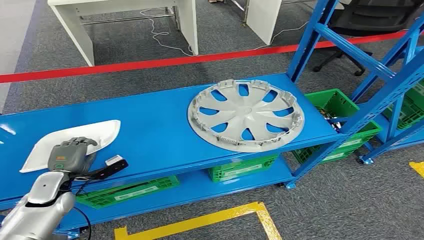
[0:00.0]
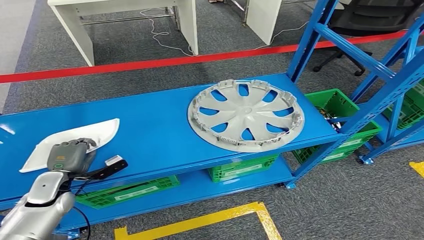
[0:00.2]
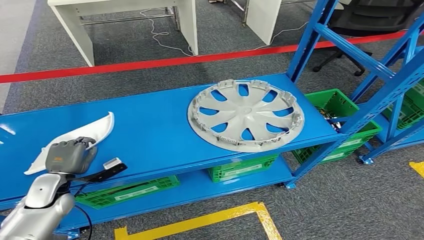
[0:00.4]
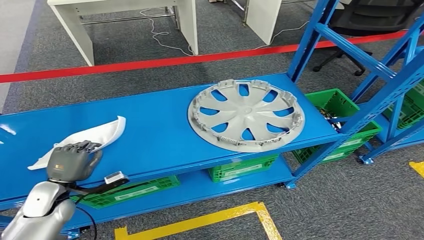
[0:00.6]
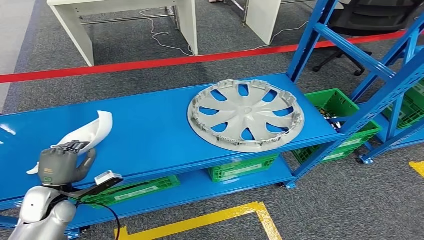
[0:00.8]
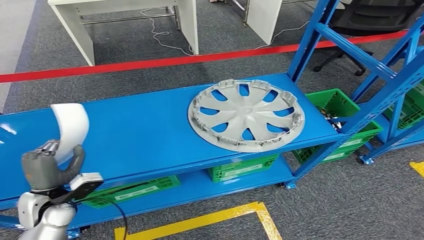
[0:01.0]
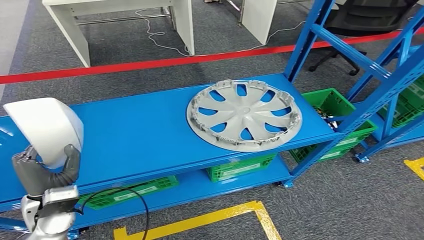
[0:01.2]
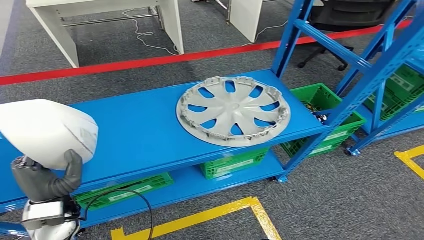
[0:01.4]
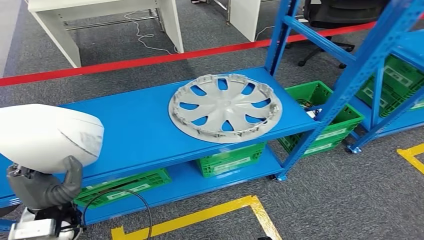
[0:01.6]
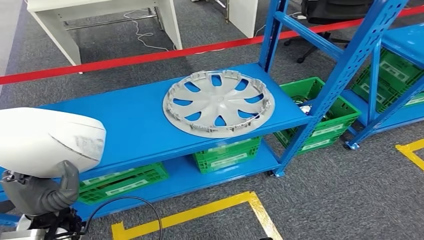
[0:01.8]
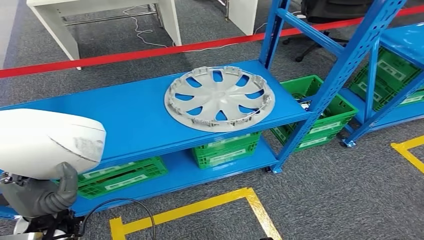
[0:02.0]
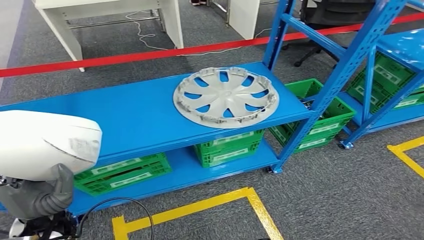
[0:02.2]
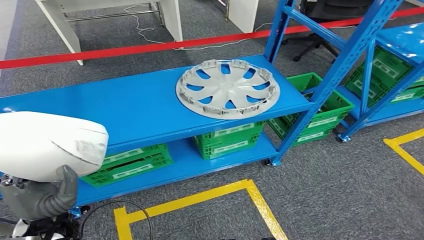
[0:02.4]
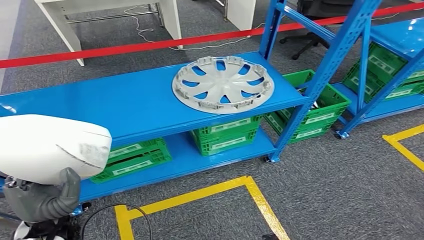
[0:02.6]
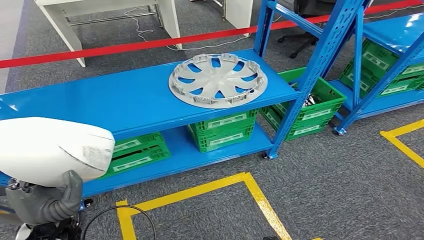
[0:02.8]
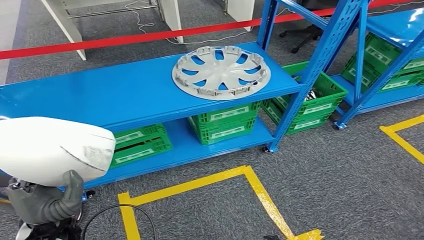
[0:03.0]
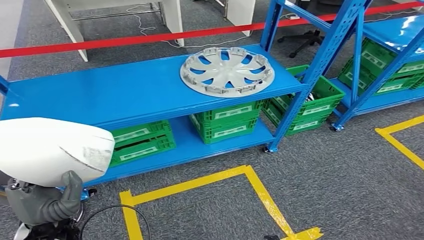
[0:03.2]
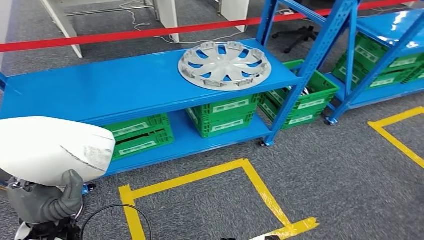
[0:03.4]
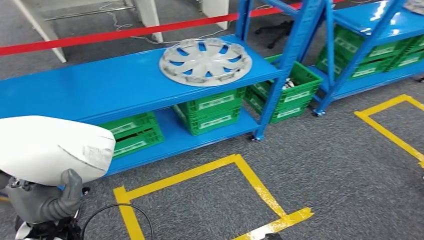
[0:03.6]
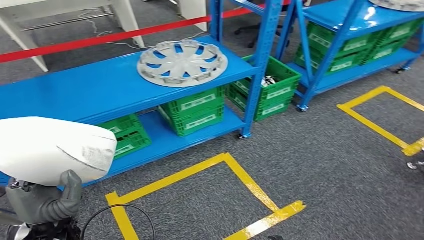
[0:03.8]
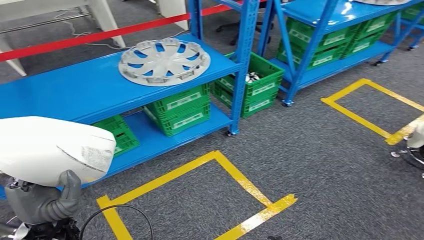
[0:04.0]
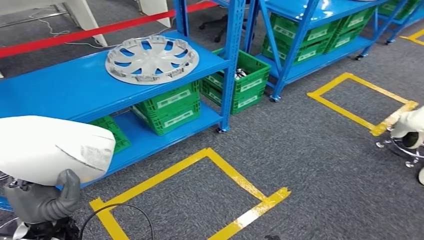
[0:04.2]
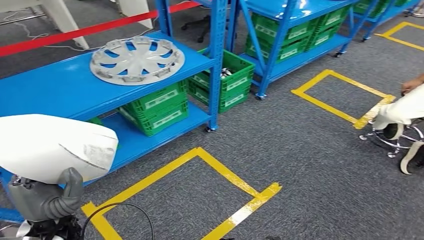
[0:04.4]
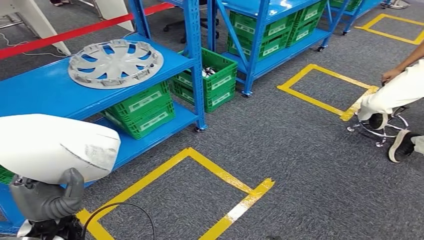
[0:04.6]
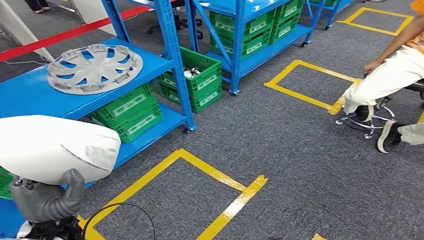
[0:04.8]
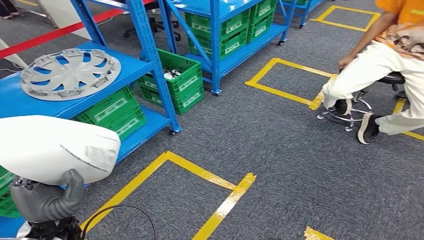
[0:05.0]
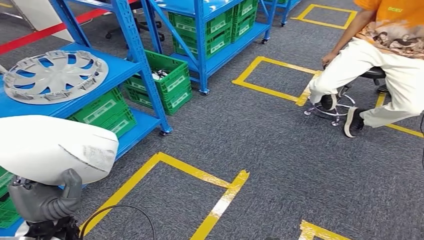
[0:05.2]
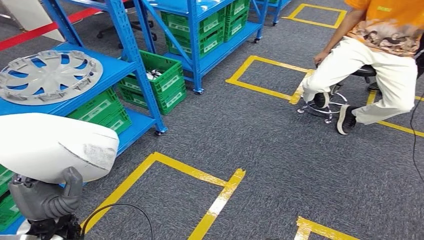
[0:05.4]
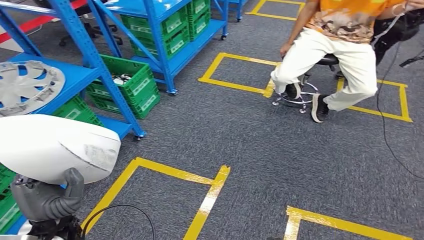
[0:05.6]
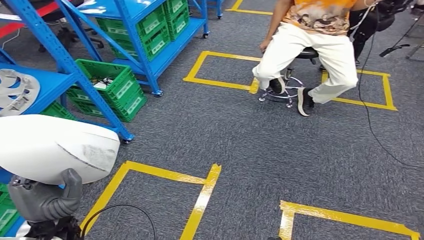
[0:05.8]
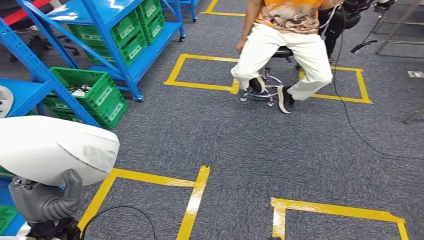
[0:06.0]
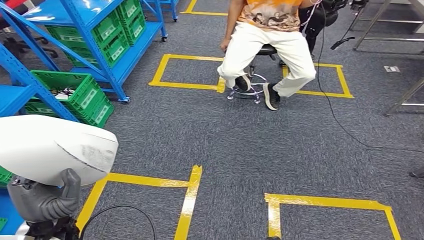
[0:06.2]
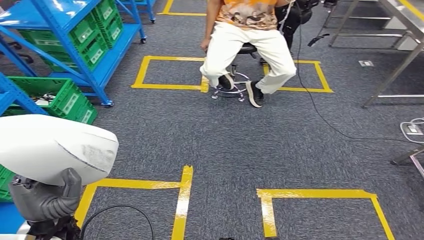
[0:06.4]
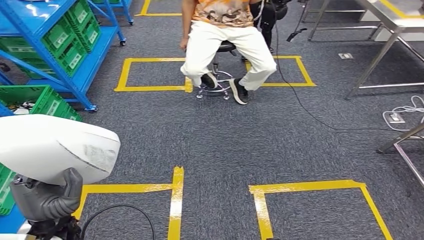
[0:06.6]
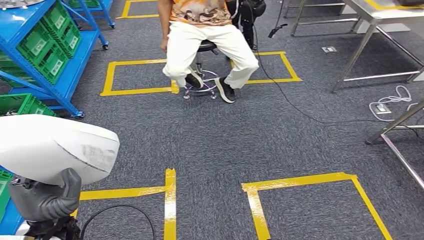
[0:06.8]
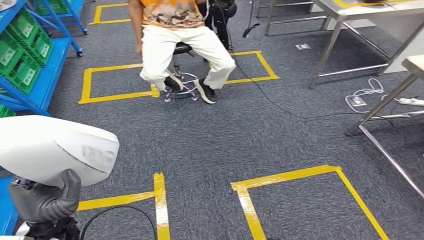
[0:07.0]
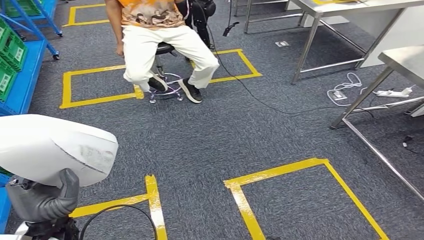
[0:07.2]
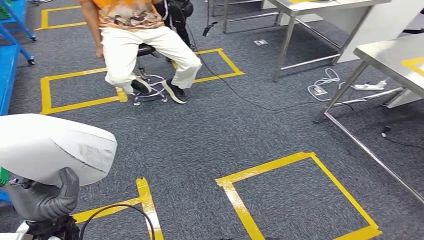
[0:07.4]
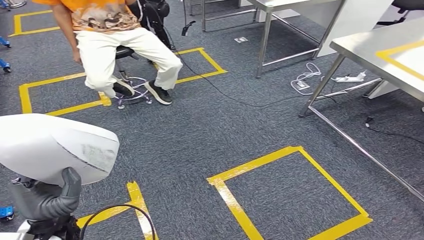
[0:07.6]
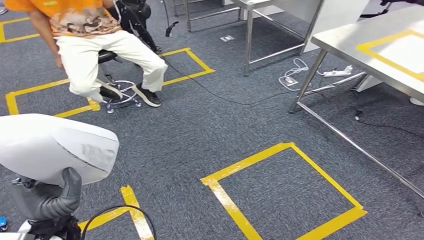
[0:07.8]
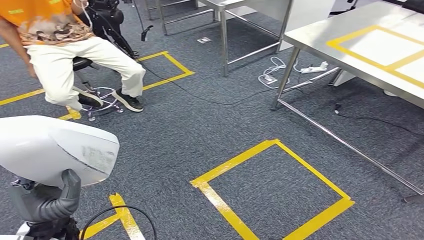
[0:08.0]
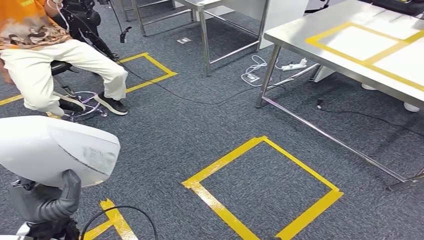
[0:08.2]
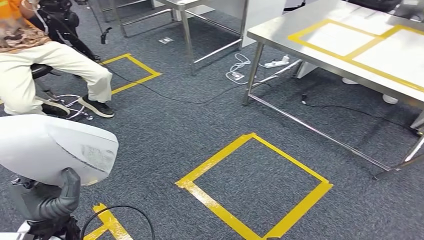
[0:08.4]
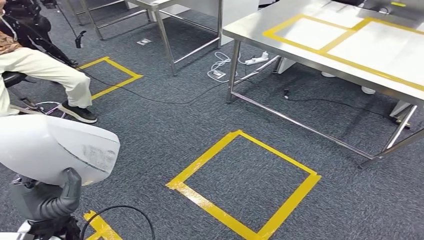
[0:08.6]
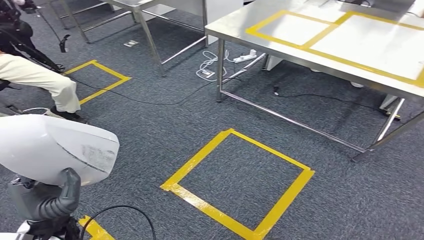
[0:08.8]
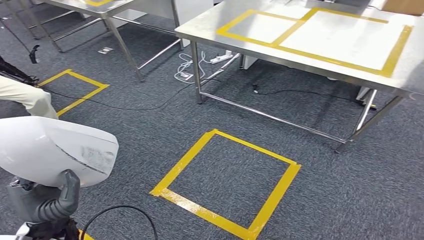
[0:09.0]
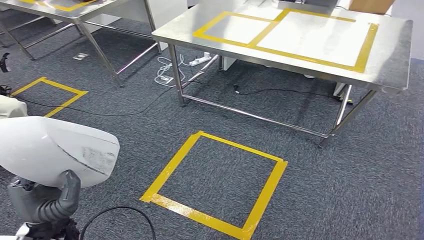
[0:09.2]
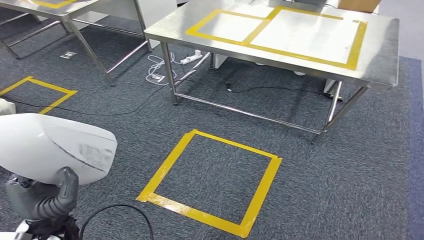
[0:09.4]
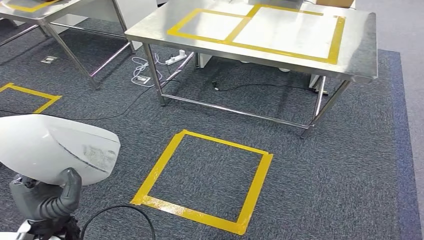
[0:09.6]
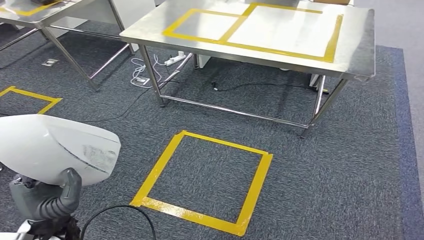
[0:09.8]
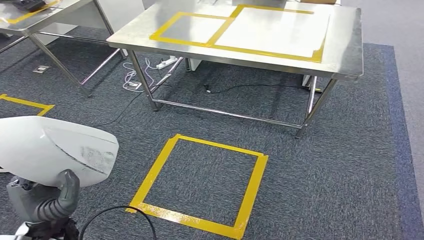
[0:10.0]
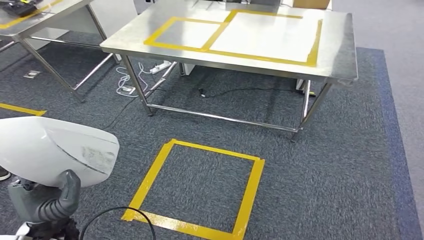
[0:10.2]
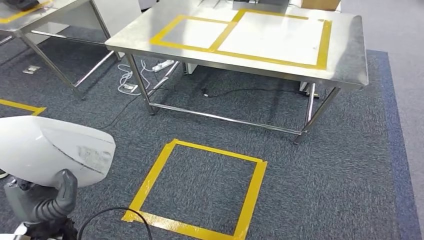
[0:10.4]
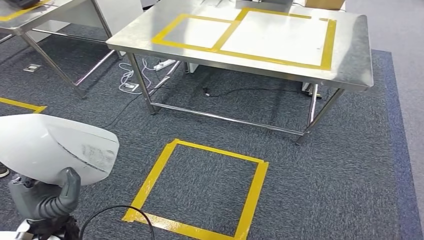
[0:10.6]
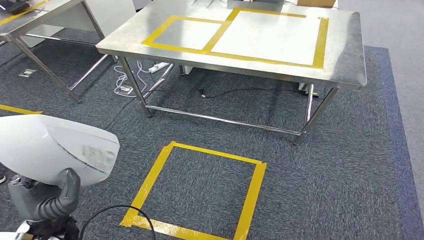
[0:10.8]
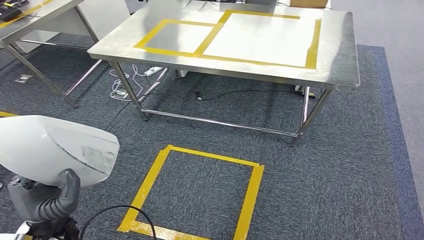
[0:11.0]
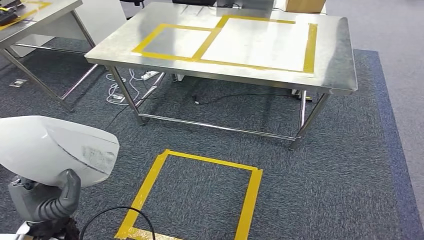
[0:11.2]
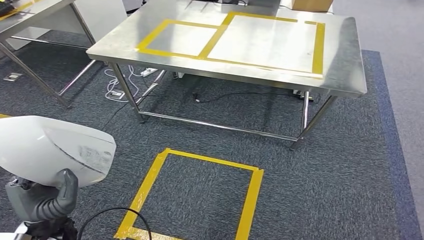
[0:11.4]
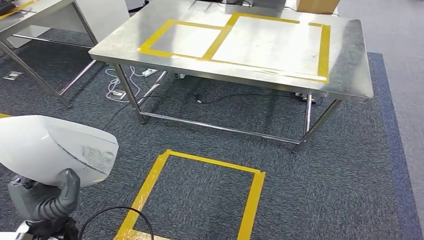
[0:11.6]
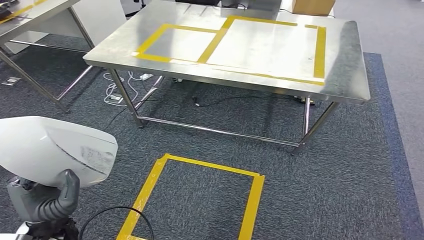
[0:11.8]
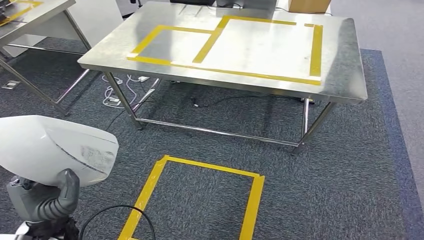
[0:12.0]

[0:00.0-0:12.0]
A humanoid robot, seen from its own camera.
Step, 0:00.0 to 0:02.8: Pick up the small parts from the shelf.

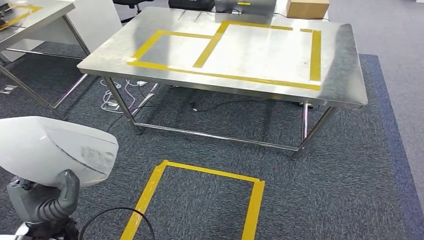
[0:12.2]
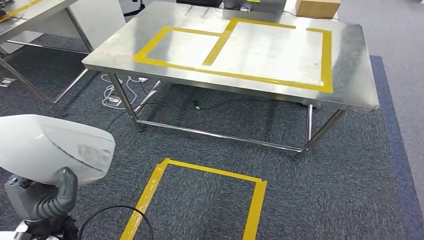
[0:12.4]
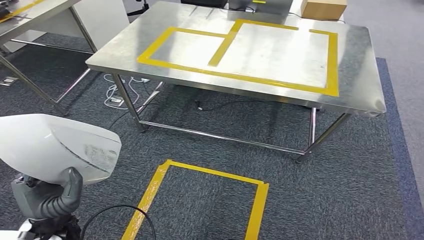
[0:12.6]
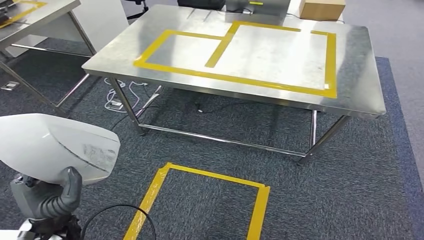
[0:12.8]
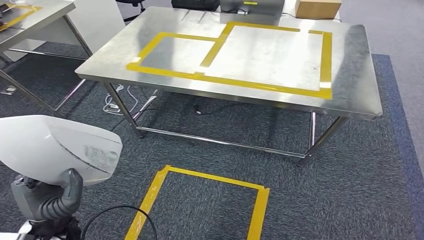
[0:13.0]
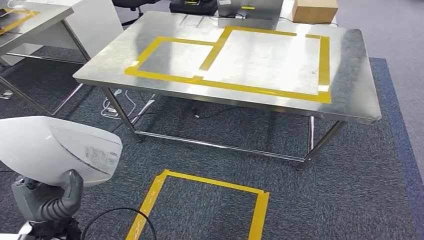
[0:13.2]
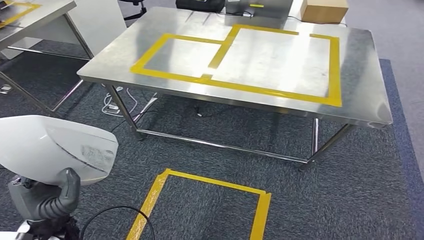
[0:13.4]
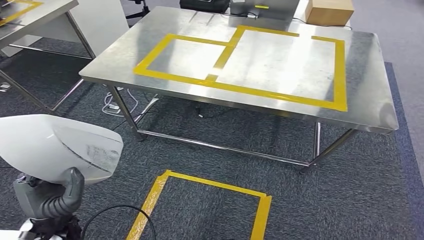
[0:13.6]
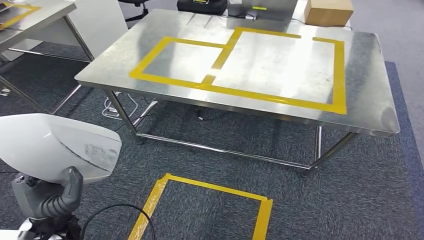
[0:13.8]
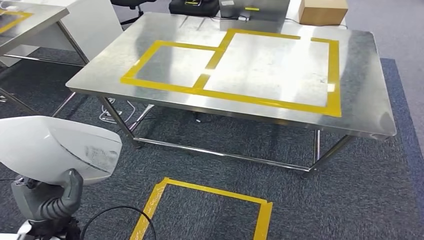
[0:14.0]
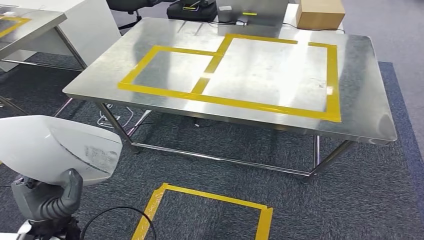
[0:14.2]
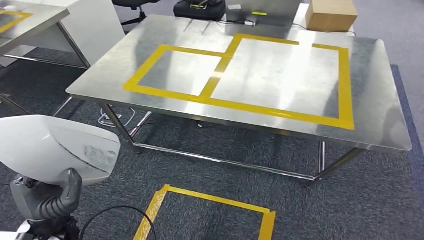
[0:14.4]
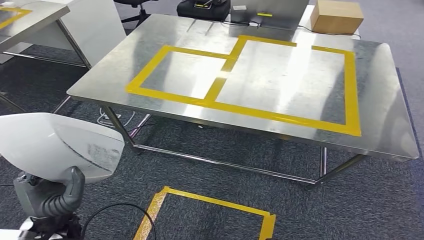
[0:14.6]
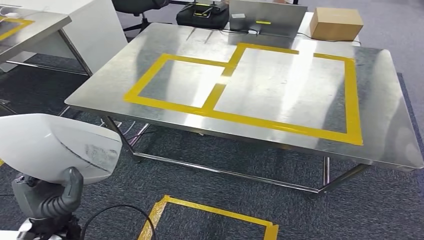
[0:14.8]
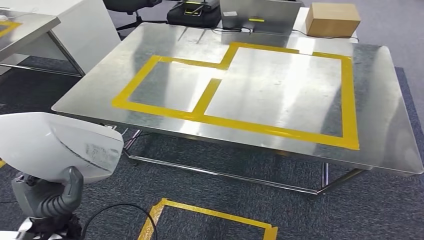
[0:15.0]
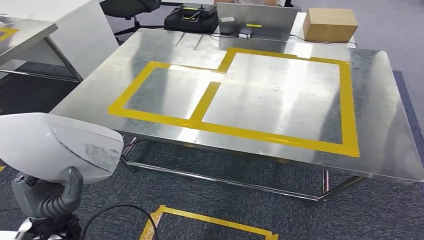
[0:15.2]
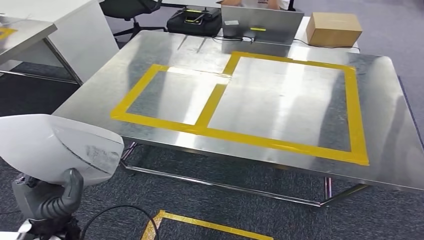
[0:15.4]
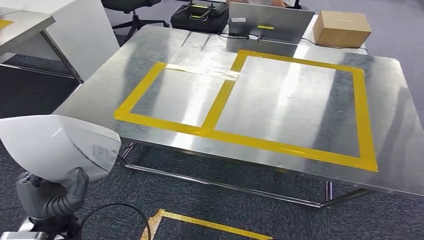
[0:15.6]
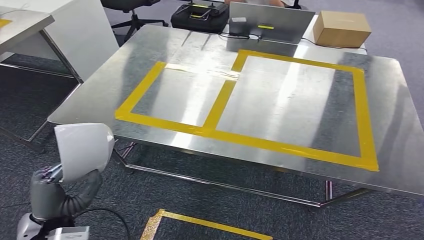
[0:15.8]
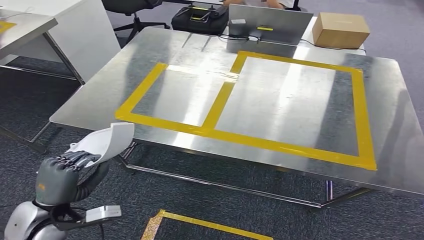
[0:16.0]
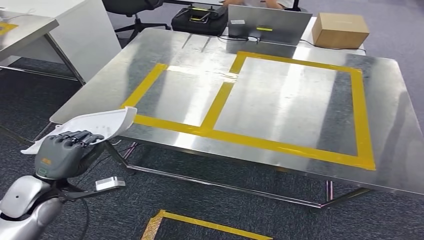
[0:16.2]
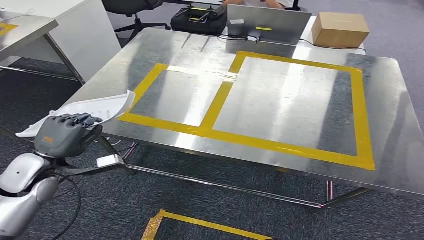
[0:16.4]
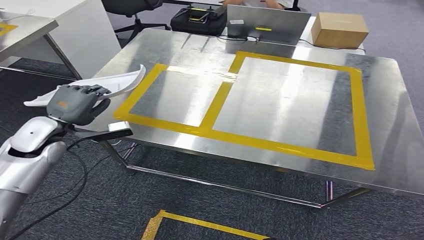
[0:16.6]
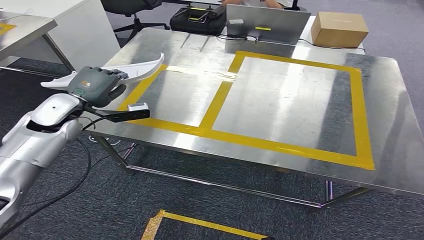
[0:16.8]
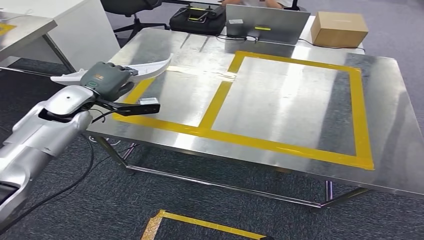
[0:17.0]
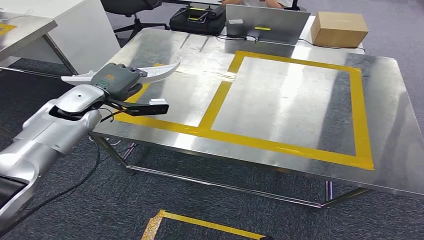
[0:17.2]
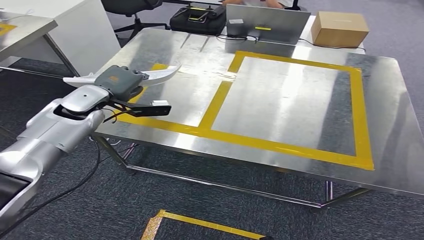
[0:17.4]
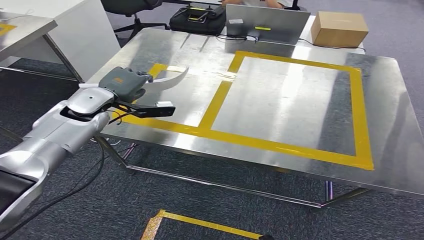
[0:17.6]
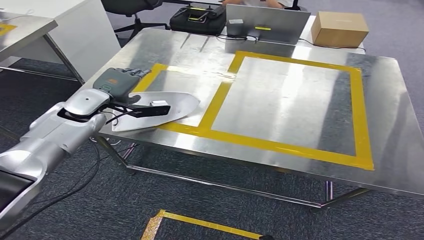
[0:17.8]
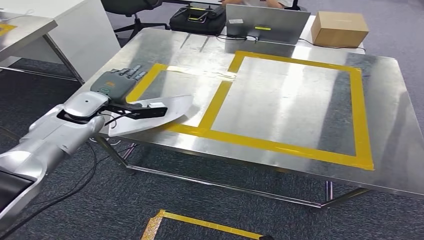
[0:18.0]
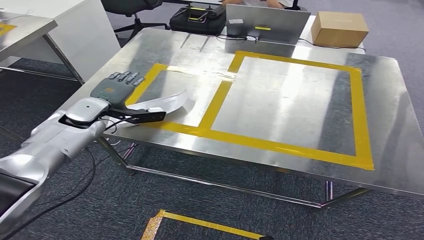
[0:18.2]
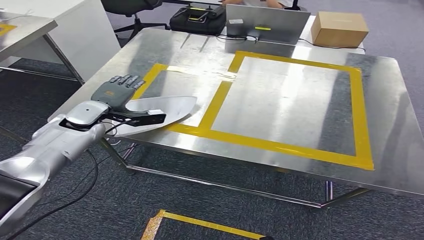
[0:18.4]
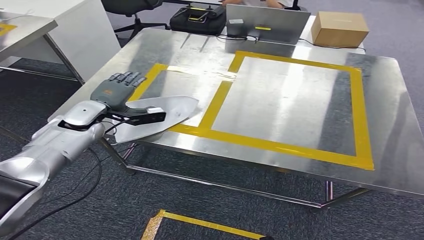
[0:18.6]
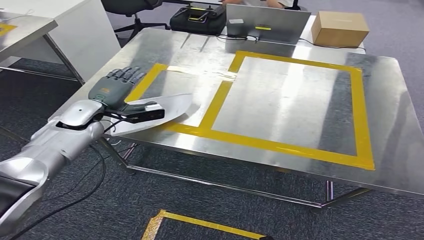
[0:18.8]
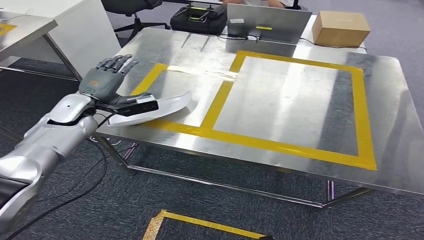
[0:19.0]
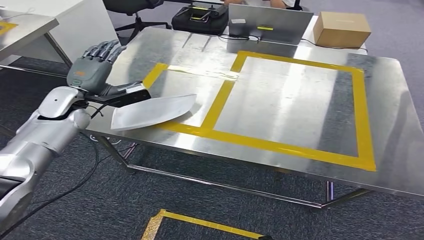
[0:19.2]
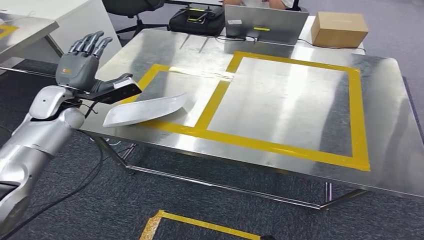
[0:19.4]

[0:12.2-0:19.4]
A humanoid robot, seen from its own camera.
Step, 0:12.2 to 0:14.8: Move the small parts to the workbench.
0:16.6 to 0:18.0: The left hand travels forward and to the right by approximately 10 cm.
